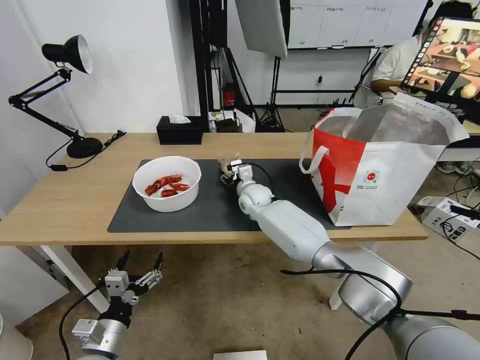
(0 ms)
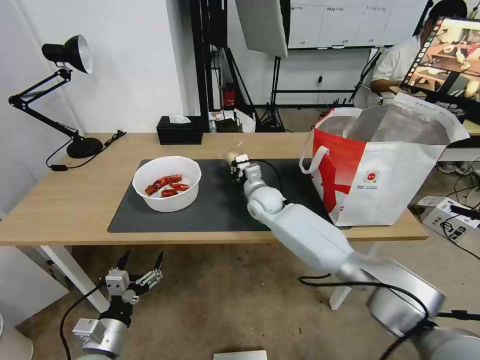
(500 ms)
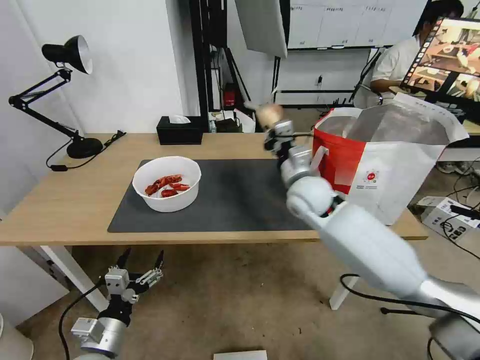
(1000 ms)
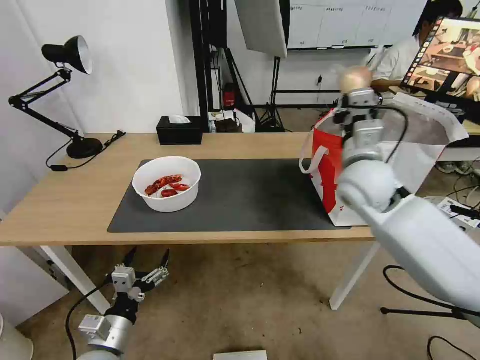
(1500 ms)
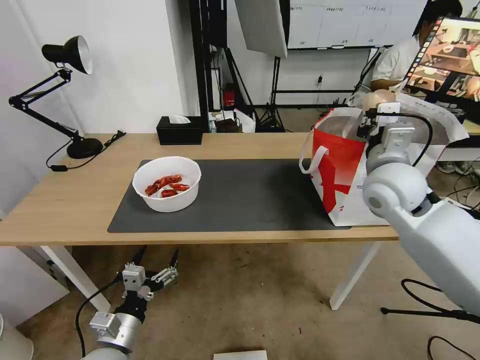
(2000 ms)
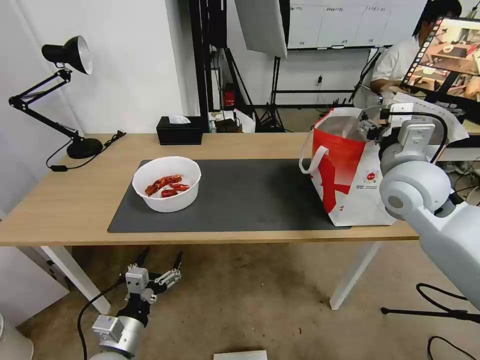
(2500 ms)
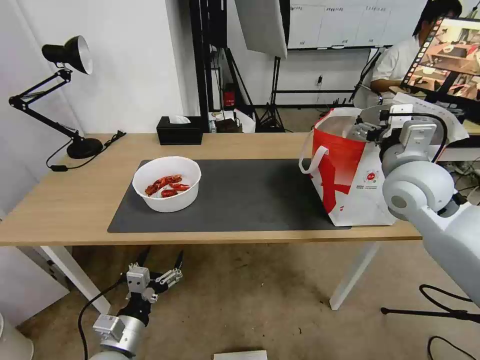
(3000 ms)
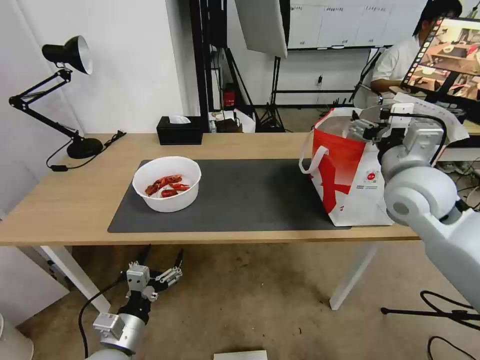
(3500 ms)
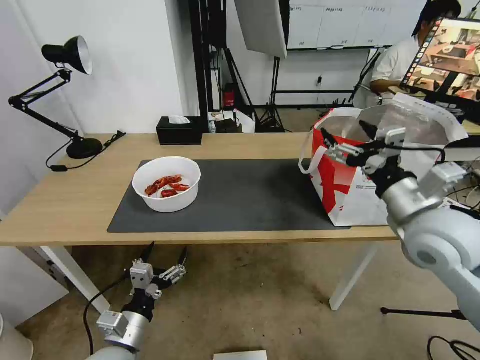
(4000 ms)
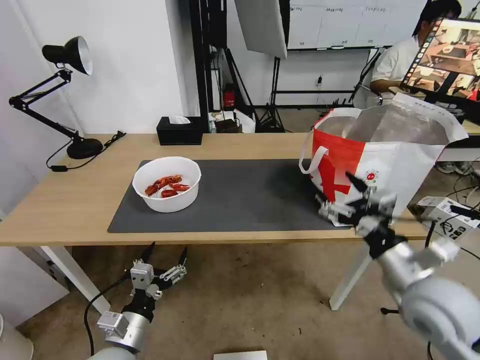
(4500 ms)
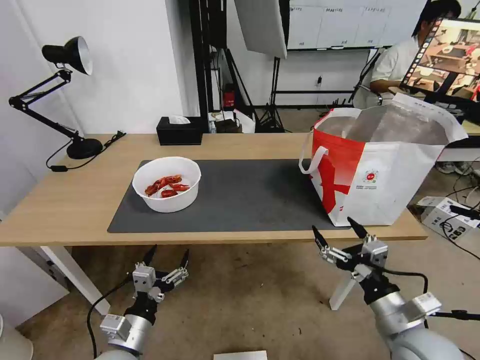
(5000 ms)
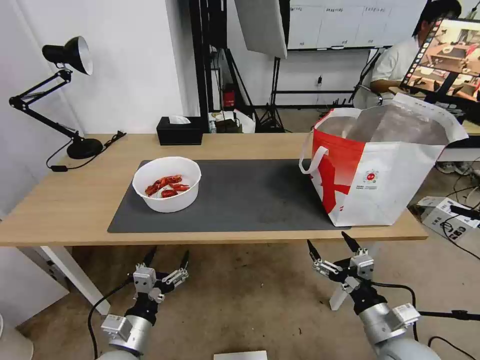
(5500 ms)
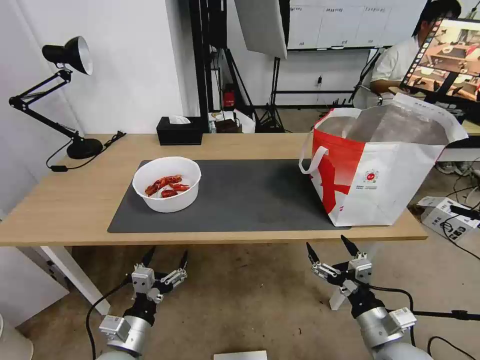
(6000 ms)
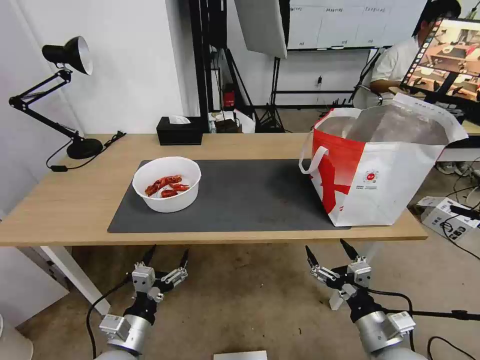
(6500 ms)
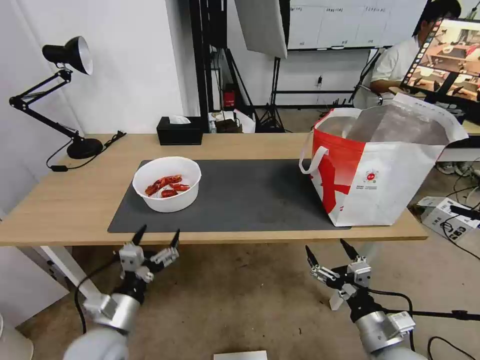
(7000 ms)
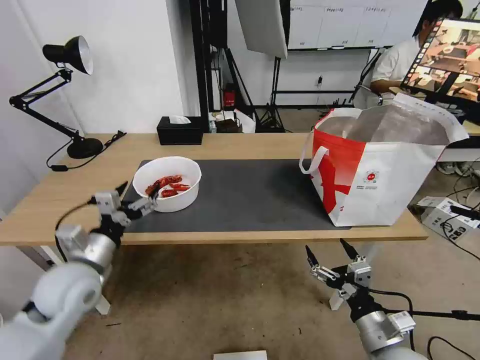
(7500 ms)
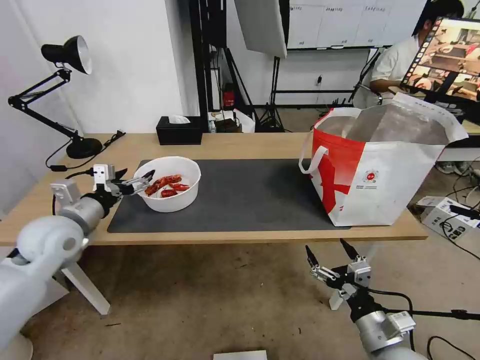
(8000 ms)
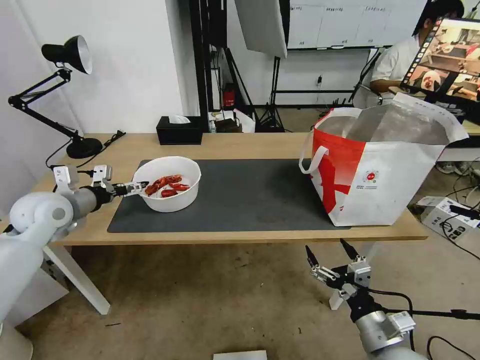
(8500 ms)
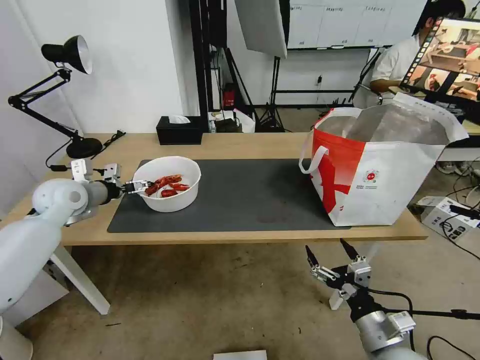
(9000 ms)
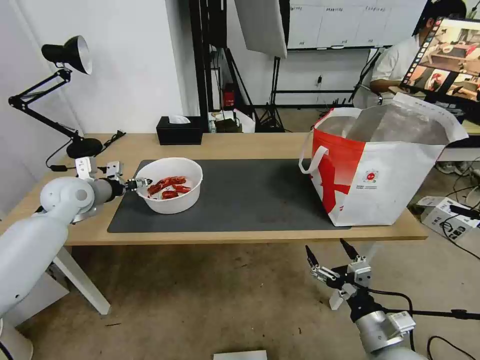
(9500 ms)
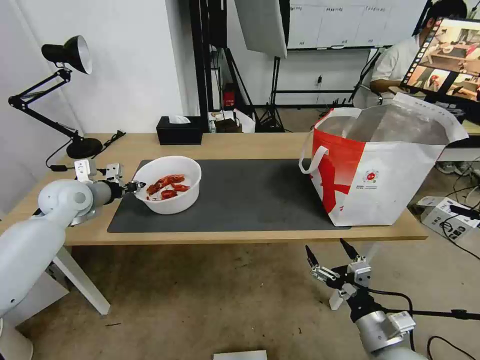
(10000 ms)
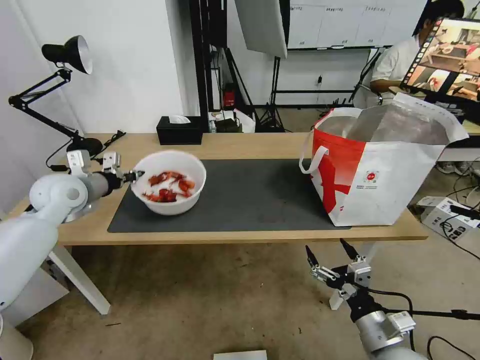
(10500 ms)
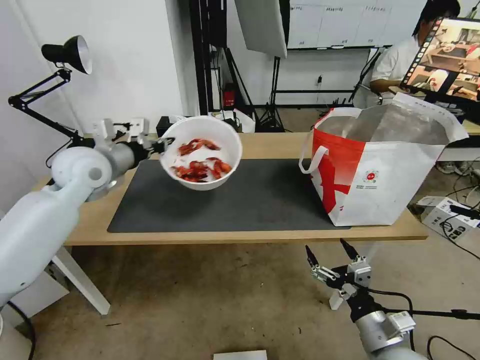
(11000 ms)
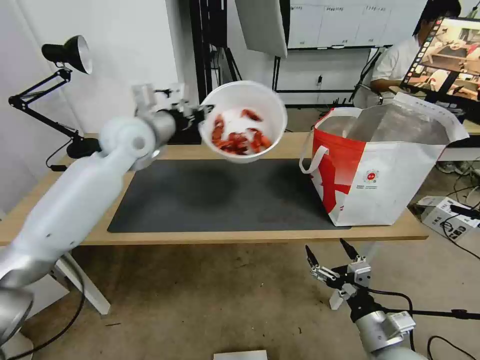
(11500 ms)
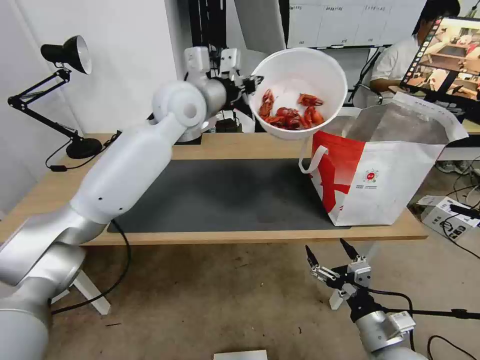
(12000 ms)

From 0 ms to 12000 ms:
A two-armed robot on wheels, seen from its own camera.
Task of the whole recording: Pick up the trash from the table and place it into the takeout bag.
From 0 ms to 2000 ms: The right gripper travels to the right, upward and backward by roughly 35 cm, and closes.
From 2000 ms to 4000 ms: The right gripper shifts roughly 10 cm backward, and opens its fingers.
From 4000 ms to 6000 ms: The right gripper shifts about 25 cm downward and backward.
From 6000 ms to 8000 ms: The left gripper goes about 30 cm forward, upward and to the left.
From 8000 ms to 10000 ms: The left gripper moves forward, some 10 cm, and closes.
From 10000 ms to 12000 ms: The left gripper goes roughly 35 cm to the right and upward.

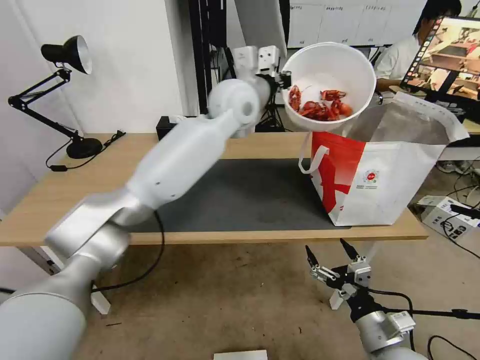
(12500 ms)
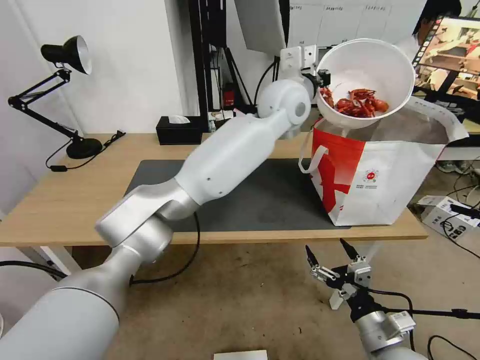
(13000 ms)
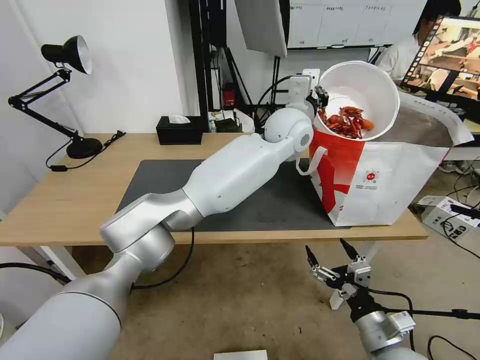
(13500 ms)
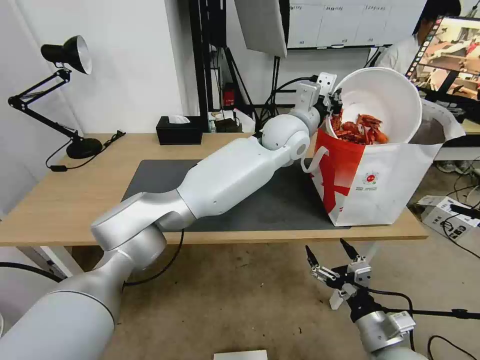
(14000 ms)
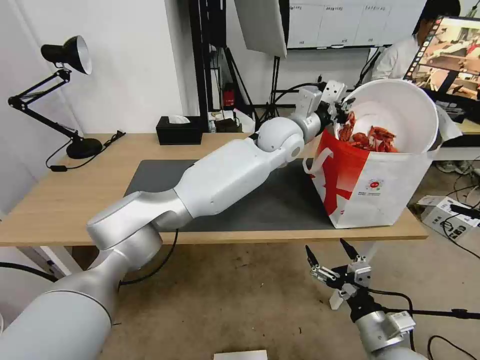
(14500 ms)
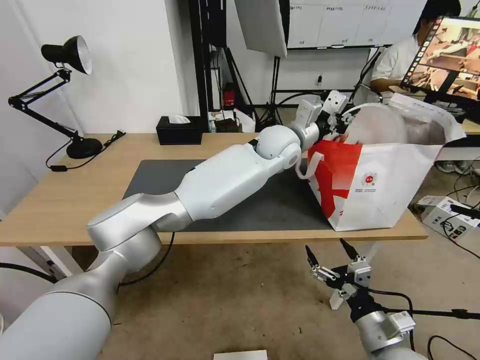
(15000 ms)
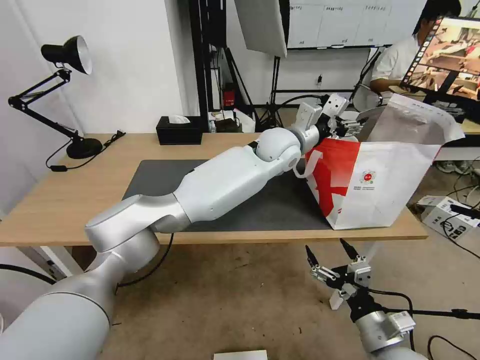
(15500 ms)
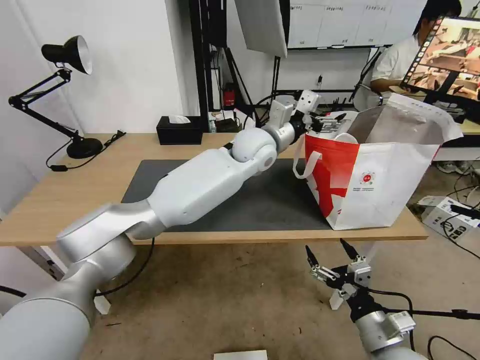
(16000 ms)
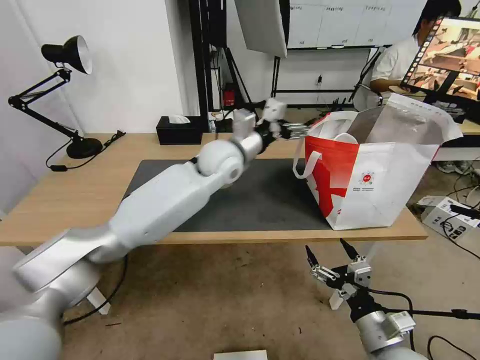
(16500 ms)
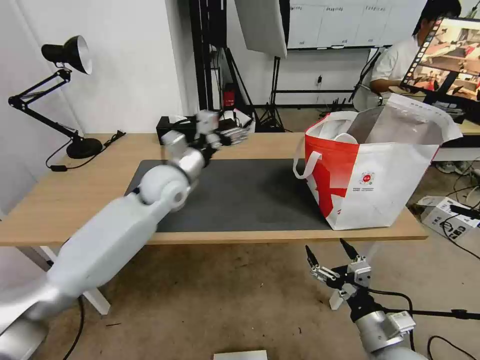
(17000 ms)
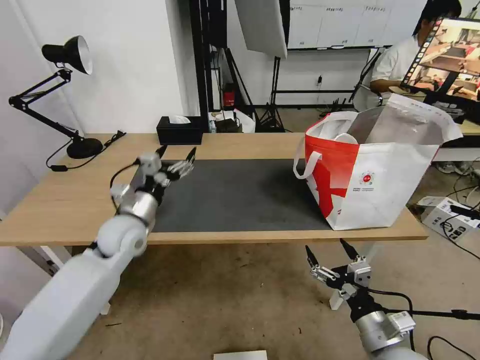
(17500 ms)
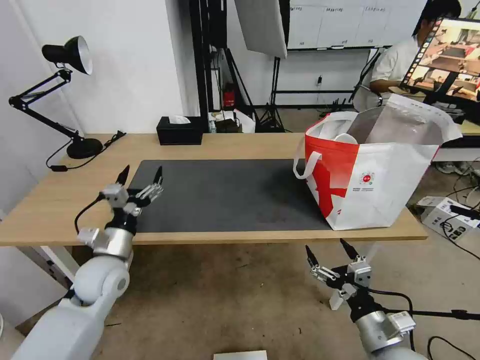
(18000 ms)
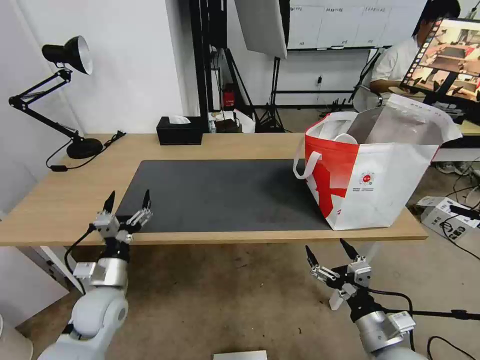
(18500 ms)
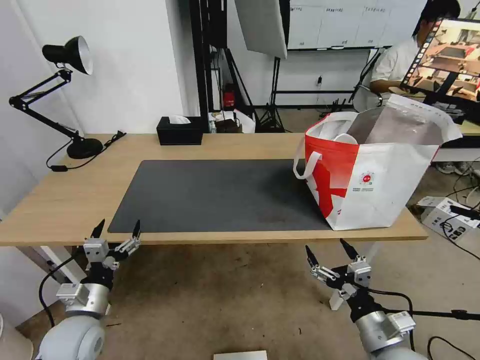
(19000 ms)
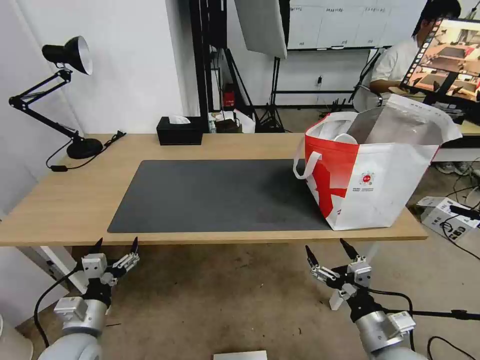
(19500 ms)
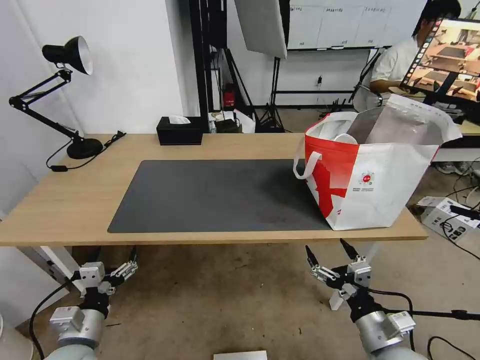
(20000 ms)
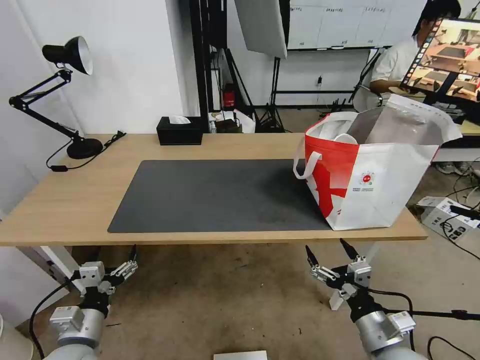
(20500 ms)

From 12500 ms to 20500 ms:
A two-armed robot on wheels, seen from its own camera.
Task of the whole recording: Pick up the trash from the table and place it into the takeout bag.
From 12500 ms to 14500 ms: The left gripper is displaced to the right and downward by roughly 10 cm.
From 14500 ms to 16500 ms: The left gripper shifts about 15 cm to the left, and opens up.
From 16500 ms to 18500 ms: The left gripper shifts some 40 cm to the left, backward and downward.
From 18500 ms to 20500 ms: The left gripper goes some 10 cm backward.

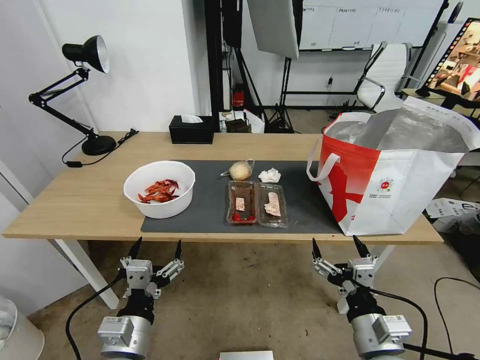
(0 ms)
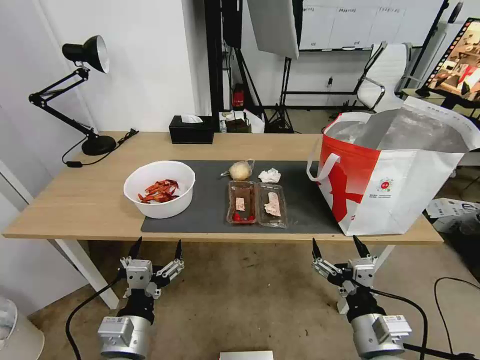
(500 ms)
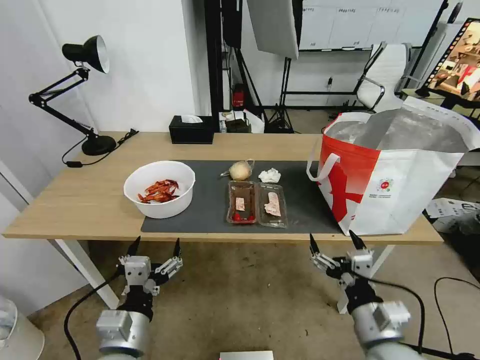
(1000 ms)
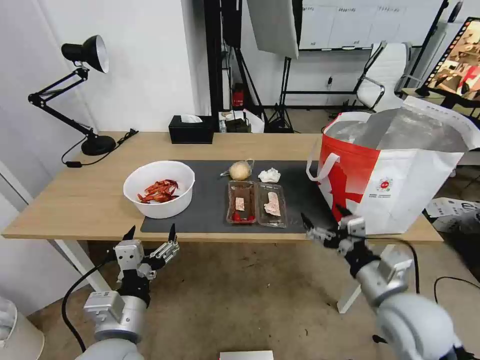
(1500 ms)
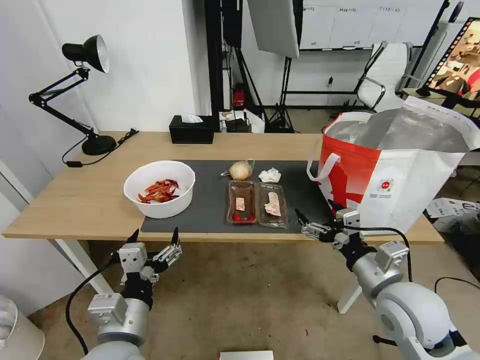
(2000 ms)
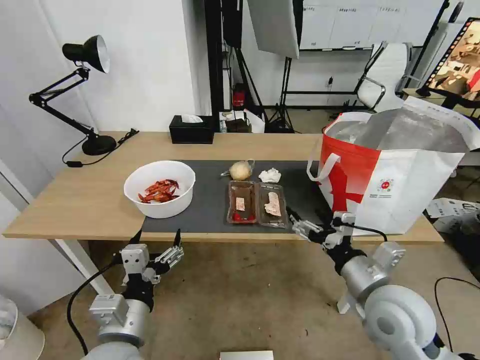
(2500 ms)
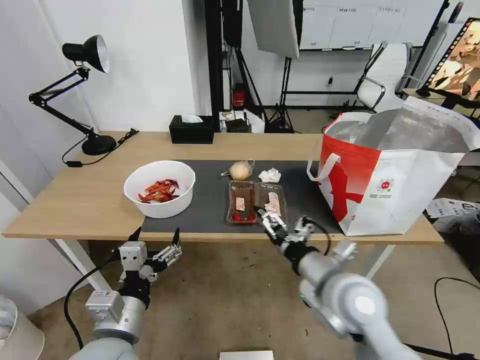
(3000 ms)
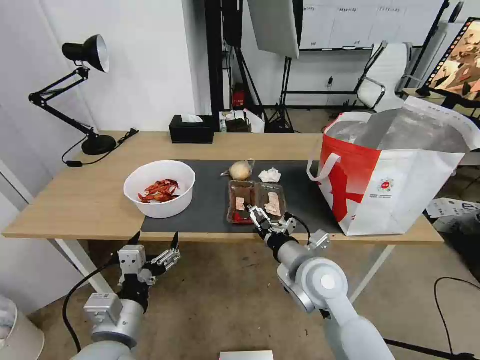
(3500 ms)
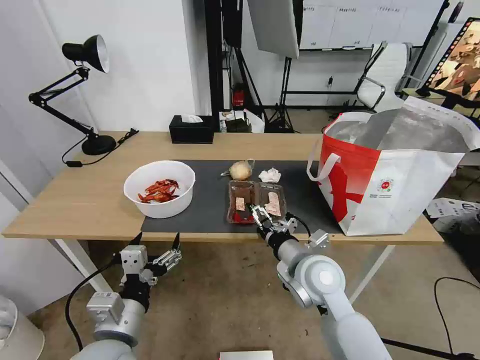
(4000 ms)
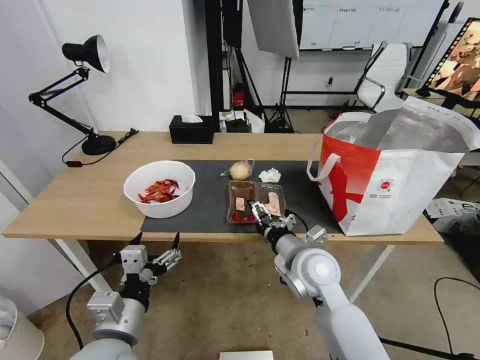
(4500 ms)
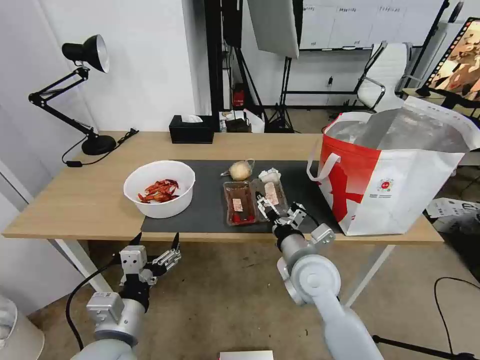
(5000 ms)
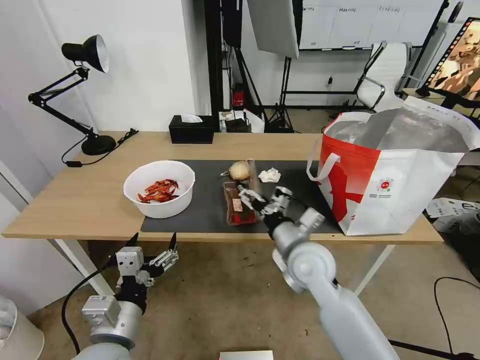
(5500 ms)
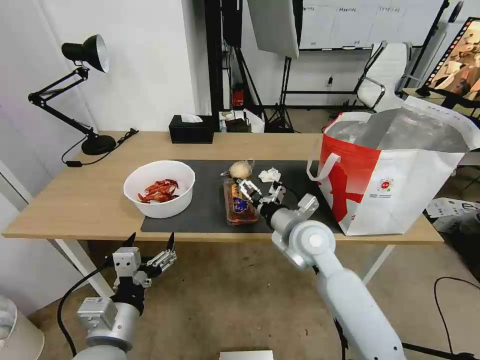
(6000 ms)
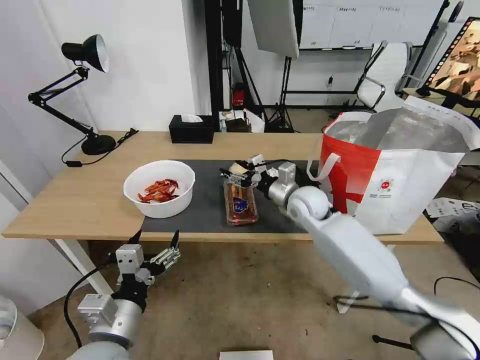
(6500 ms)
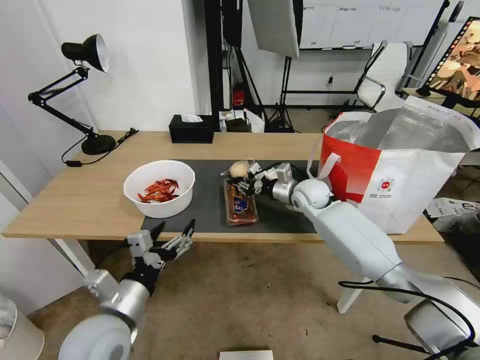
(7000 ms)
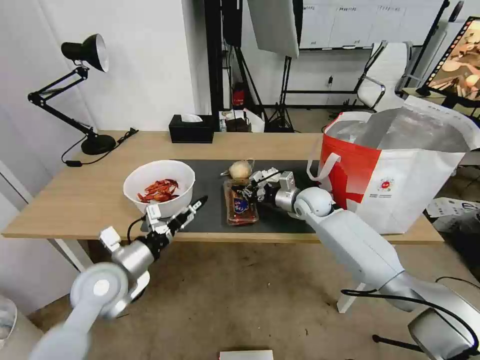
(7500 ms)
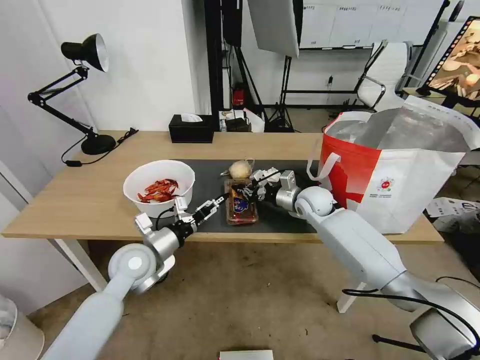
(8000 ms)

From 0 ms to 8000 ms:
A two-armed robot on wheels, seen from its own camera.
Task of the whole recording: Pick up the trash from the table and place it into the takeout bag.
From 2000 ms to 4000 ms: The right gripper is displaced to the left and forward by some 15 cm.
From 4000 ms to 6000 ms: The right gripper shifts some 5 cm forward.
From 6000 ms to 8000 ms: The two grippers go about 20 cm forward. The right gripper closes up.
